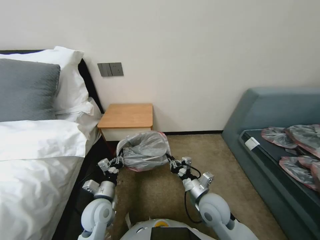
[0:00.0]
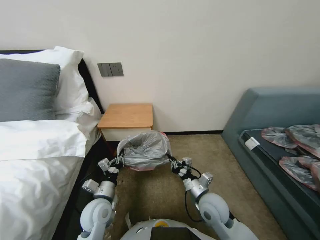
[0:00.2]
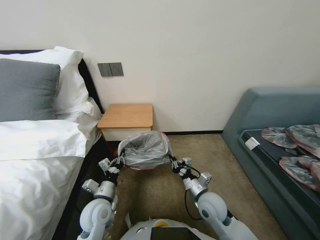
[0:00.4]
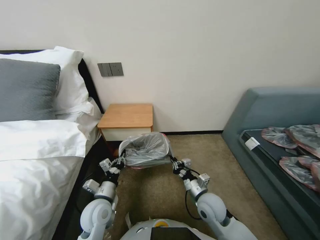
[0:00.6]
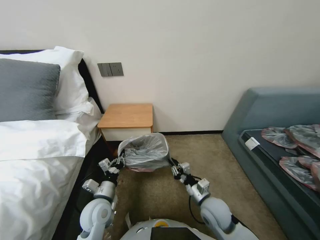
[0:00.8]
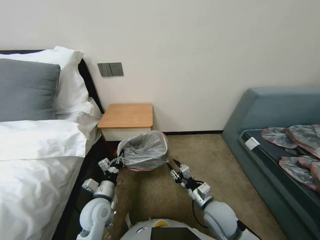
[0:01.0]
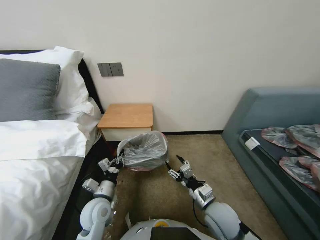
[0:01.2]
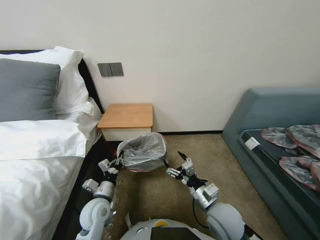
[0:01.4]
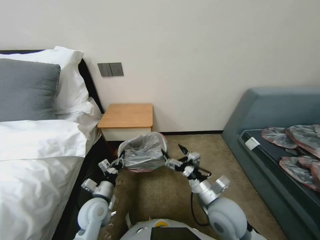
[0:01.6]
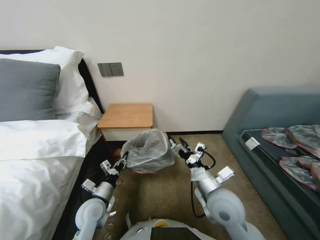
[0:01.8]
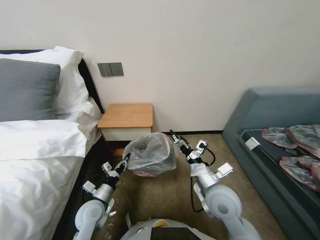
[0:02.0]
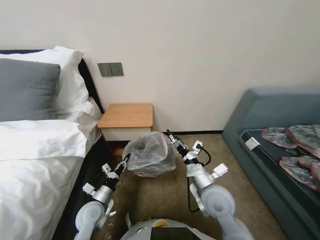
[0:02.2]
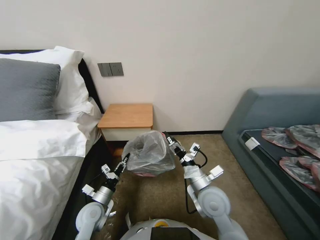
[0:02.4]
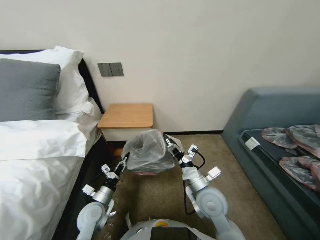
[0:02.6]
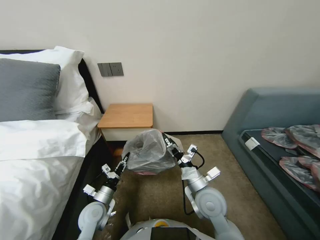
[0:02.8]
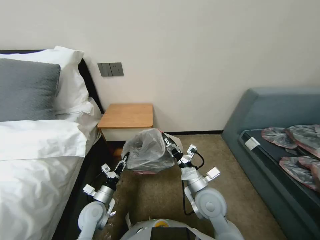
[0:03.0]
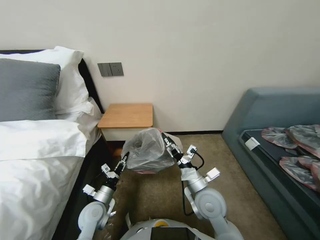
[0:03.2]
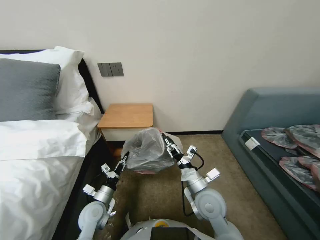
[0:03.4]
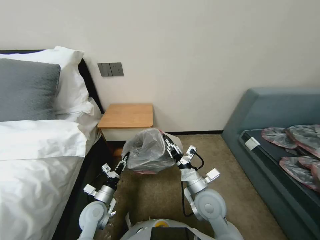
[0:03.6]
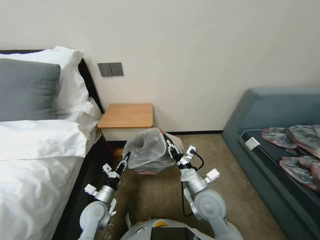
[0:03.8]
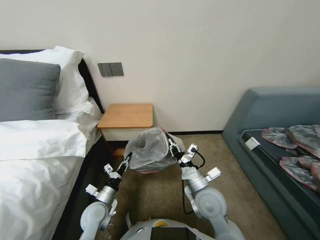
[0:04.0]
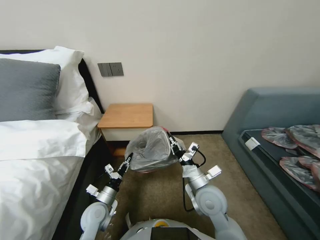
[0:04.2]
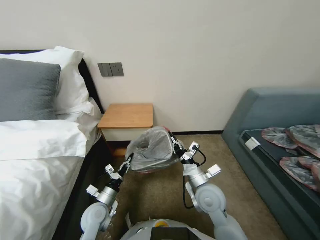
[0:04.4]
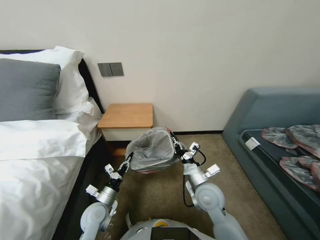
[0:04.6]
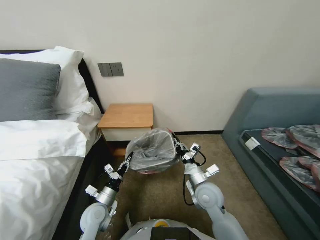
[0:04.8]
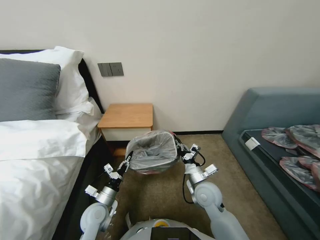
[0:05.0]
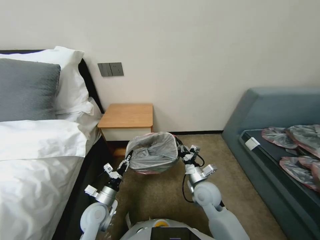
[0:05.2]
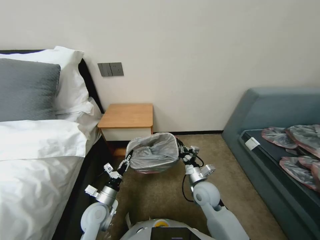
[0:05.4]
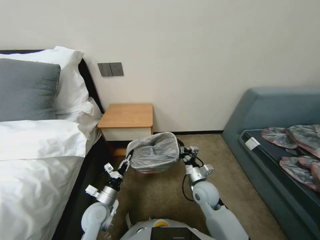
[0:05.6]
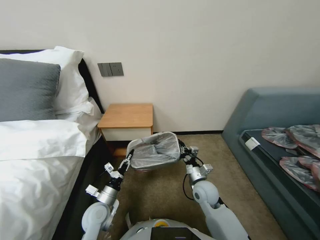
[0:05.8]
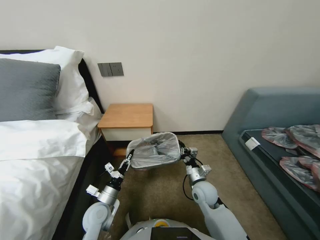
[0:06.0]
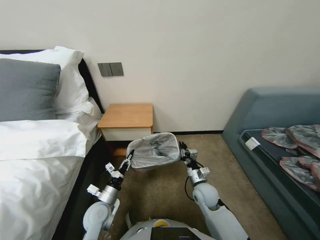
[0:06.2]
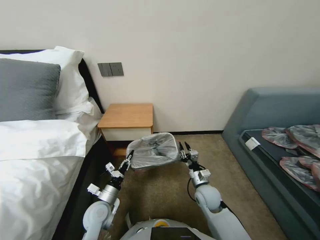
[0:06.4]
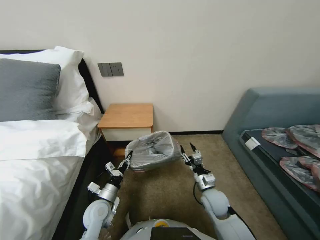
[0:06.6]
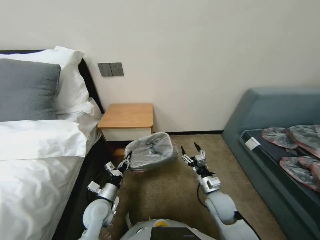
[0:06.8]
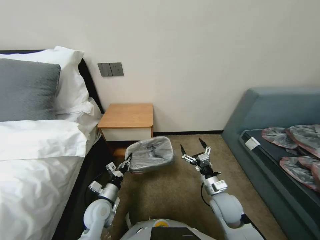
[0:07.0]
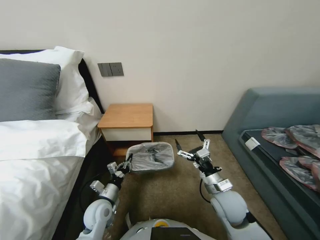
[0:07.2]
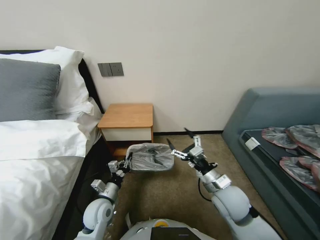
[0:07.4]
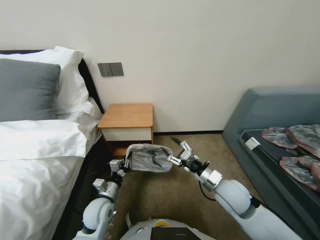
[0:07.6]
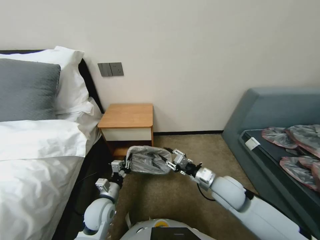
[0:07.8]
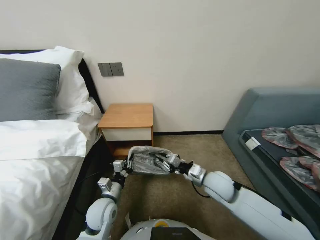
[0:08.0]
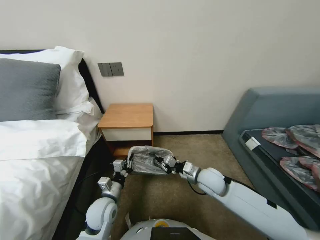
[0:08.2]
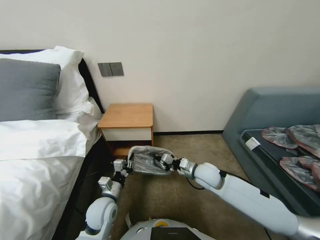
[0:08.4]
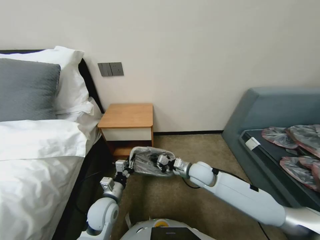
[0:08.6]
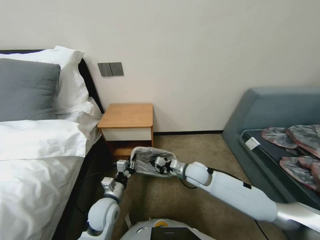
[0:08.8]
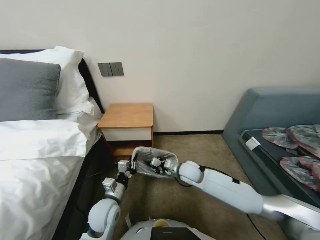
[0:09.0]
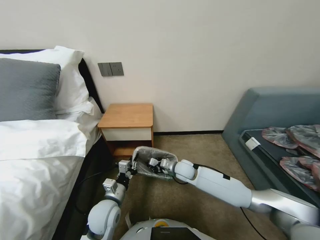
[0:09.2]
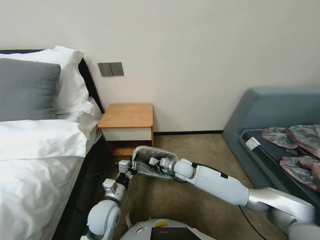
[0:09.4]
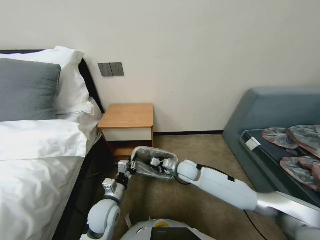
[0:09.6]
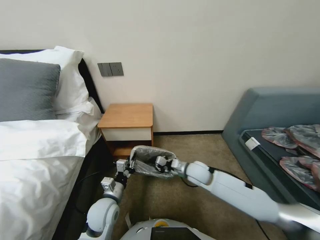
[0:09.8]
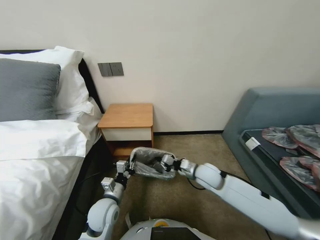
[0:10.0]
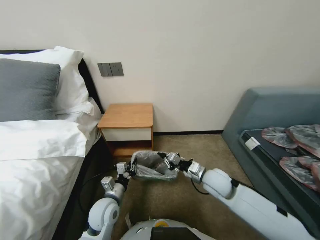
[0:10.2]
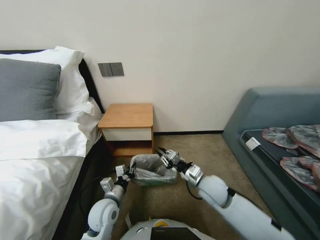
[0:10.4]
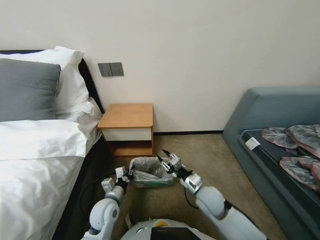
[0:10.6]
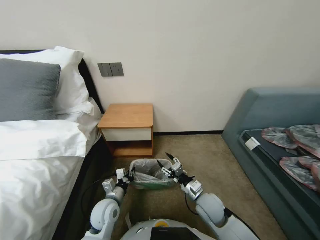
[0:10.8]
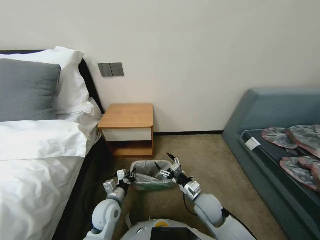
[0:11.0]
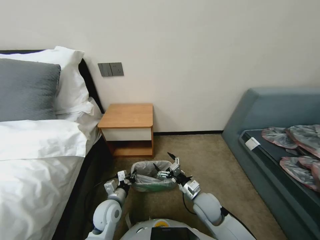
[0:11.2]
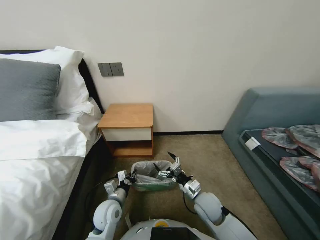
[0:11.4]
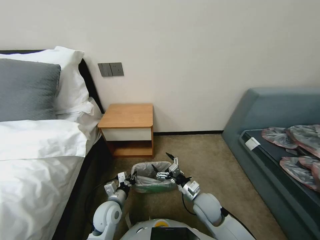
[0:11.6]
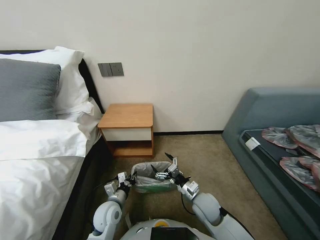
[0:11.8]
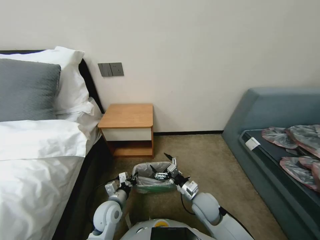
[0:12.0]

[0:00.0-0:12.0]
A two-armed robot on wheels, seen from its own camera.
Task of the whole recording: Pick up the garbage bag from the table and place it over the trash can.
0:00.0 to 0:01.6: The right gripper opens its fingers.
0:01.6 to 0:03.0: The right gripper moves approximately 5 cm.
0:03.0 to 0:04.4: The right gripper closes up.
0:04.4 to 0:06.0: The right gripper goes roughly 10 cm downward.
0:06.0 to 0:07.6: The right gripper shifts some 10 cm upward, and opens up.
0:07.6 to 0:09.0: The right gripper is displaced forward, to the left and downward by some 15 cm, and closes up.
0:09.0 to 0:10.4: The right gripper moves backward, approximately 5 cm.
0:10.4 to 0:12.0: The right gripper travels downward by about 10 cm, and opens up.

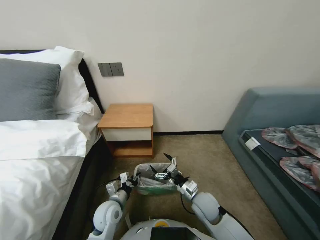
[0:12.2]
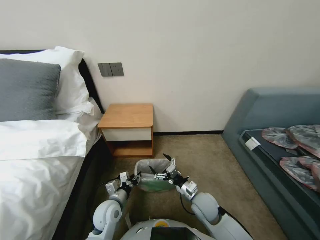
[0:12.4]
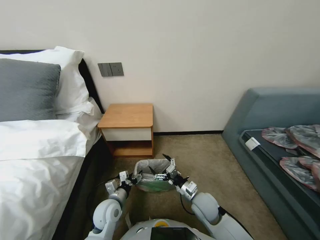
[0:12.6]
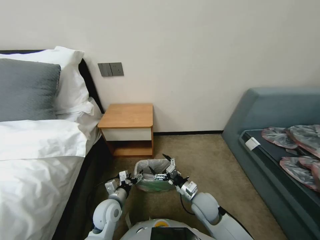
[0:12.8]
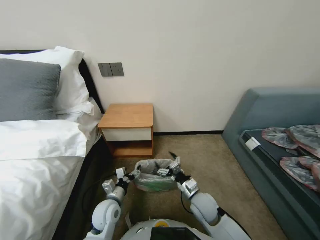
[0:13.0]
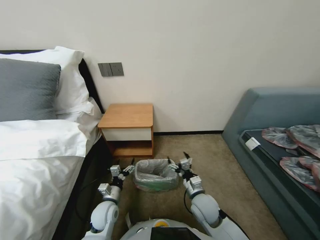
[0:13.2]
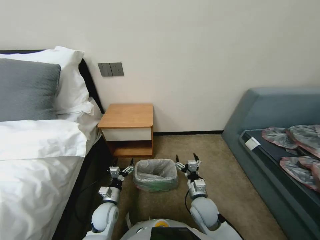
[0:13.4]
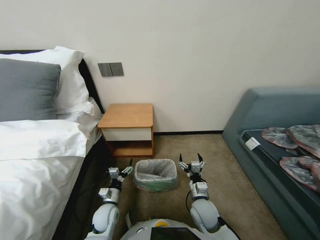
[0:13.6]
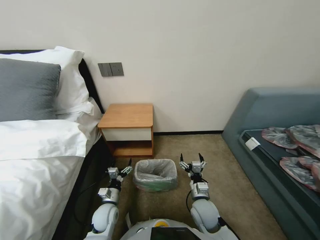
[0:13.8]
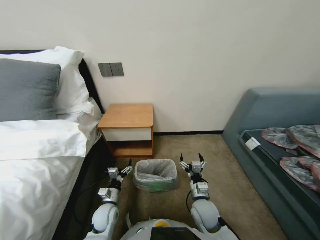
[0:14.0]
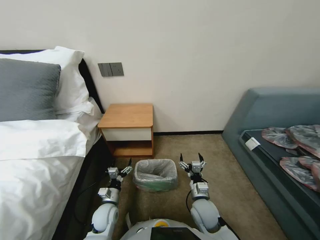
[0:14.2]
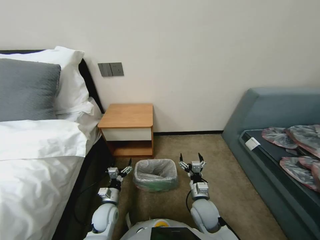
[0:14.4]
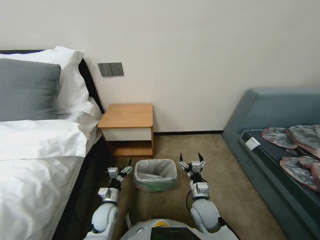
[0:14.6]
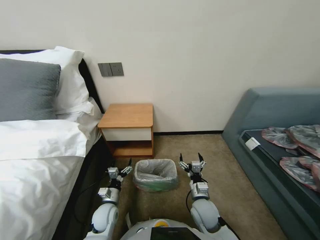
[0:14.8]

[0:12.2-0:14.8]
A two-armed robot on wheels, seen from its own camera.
Task of the whole recording: Pick up the garbage bag from the table and place it over the trash can.
0:12.2 to 0:13.4: The left gripper shifts by roughly 5 cm, and opens its fingers.
0:13.4 to 0:14.8: The grippers move only a little.
